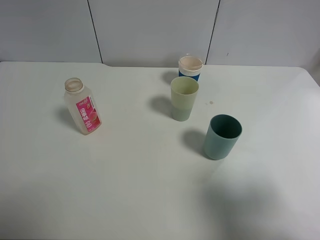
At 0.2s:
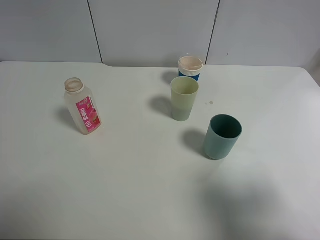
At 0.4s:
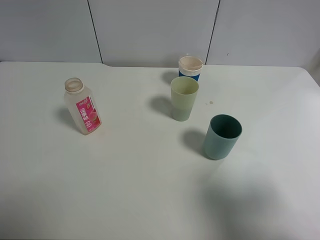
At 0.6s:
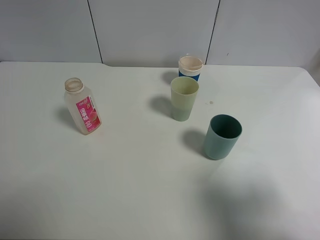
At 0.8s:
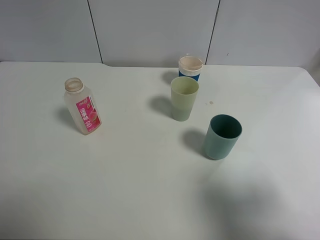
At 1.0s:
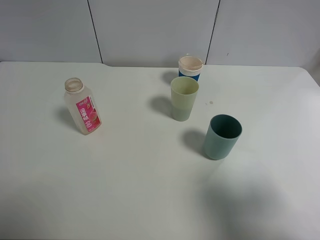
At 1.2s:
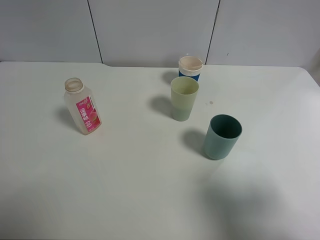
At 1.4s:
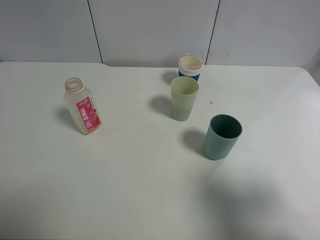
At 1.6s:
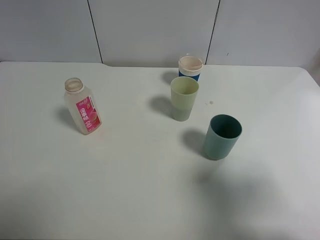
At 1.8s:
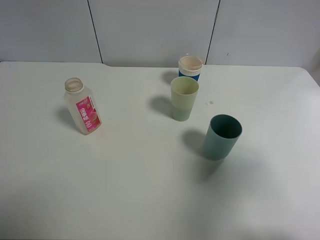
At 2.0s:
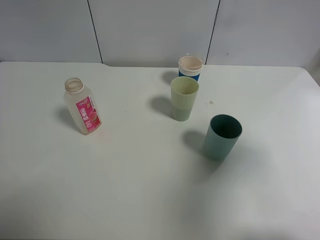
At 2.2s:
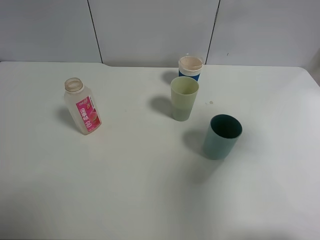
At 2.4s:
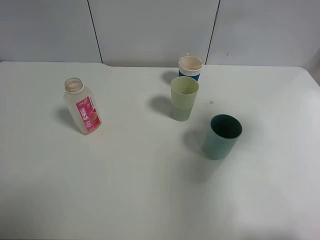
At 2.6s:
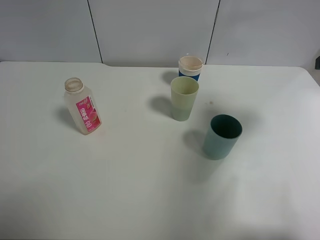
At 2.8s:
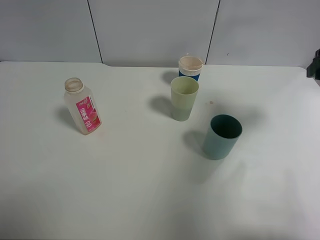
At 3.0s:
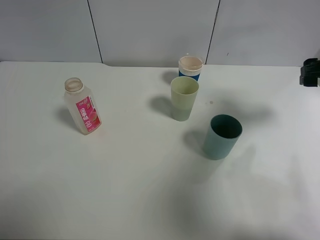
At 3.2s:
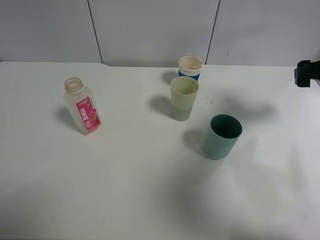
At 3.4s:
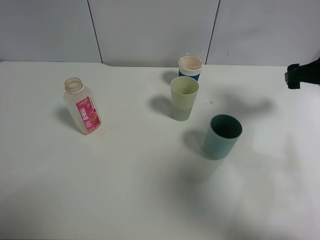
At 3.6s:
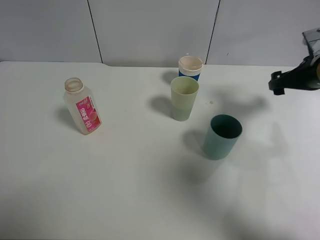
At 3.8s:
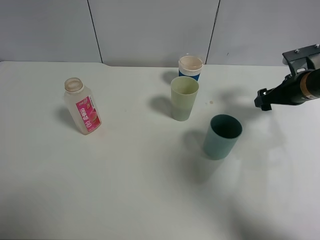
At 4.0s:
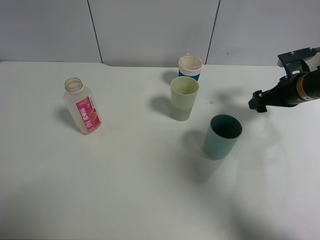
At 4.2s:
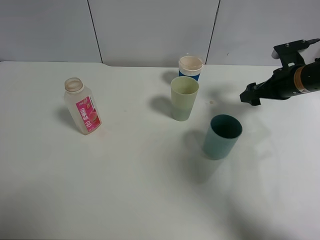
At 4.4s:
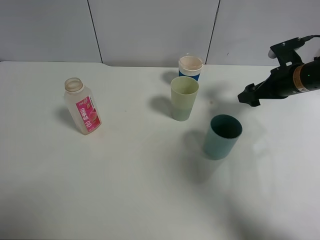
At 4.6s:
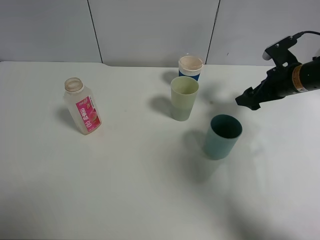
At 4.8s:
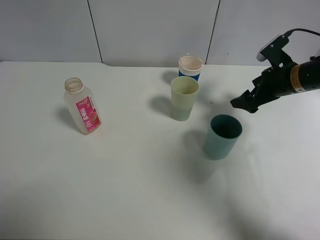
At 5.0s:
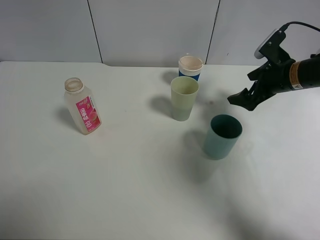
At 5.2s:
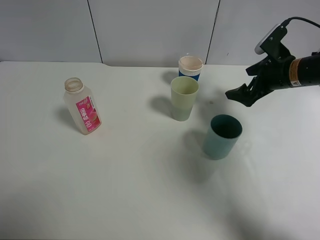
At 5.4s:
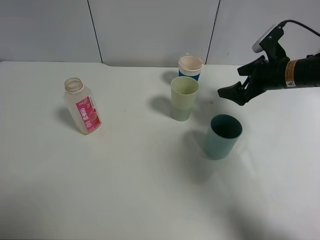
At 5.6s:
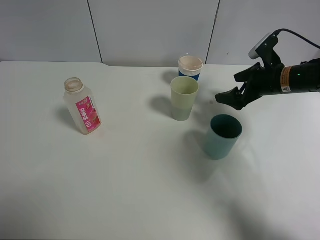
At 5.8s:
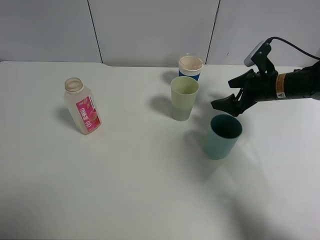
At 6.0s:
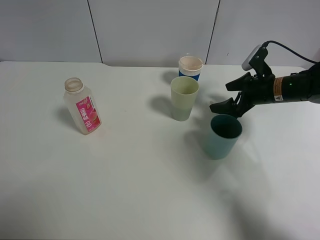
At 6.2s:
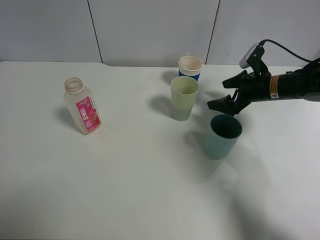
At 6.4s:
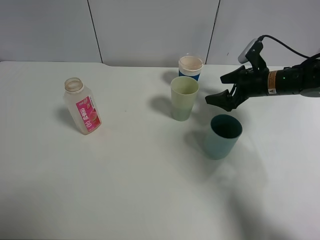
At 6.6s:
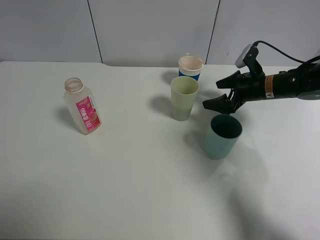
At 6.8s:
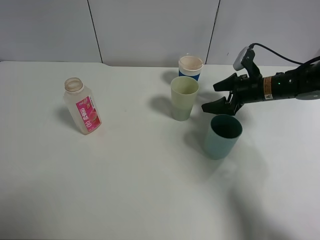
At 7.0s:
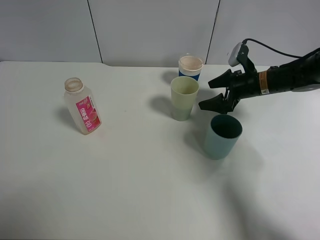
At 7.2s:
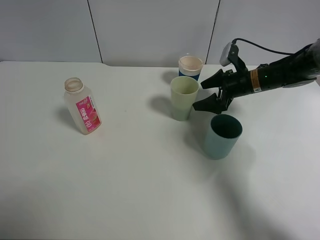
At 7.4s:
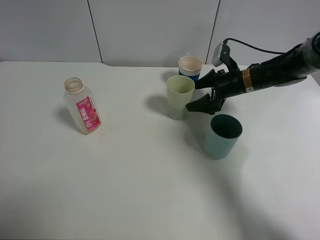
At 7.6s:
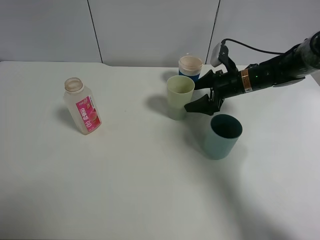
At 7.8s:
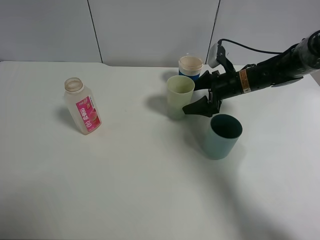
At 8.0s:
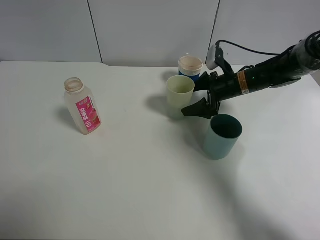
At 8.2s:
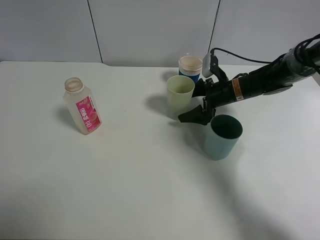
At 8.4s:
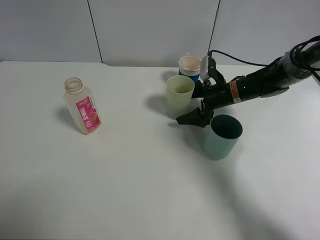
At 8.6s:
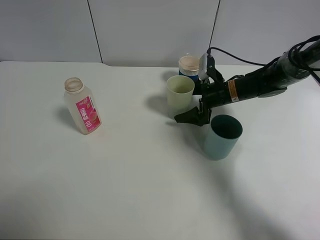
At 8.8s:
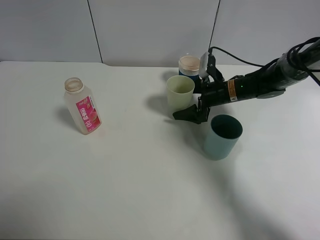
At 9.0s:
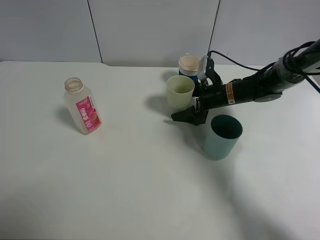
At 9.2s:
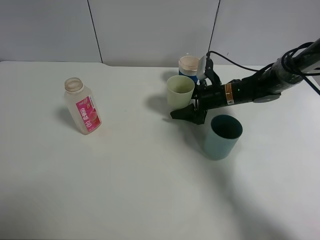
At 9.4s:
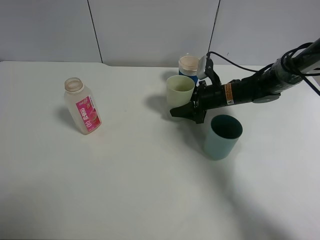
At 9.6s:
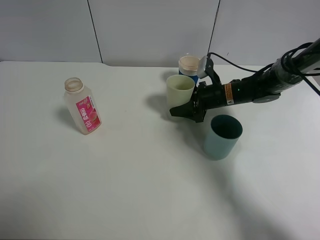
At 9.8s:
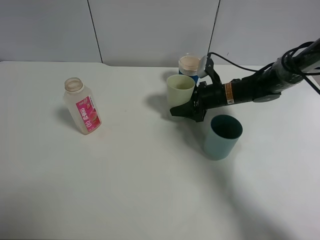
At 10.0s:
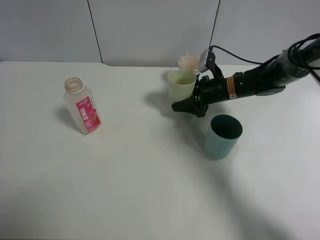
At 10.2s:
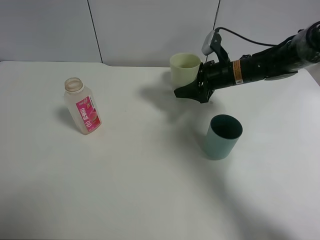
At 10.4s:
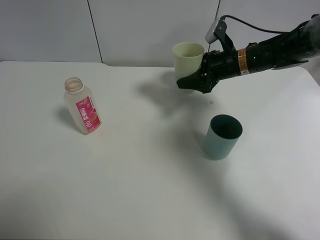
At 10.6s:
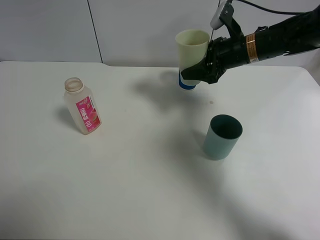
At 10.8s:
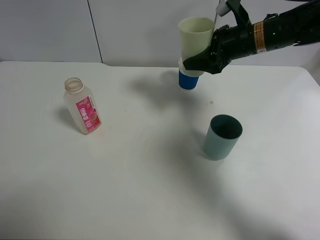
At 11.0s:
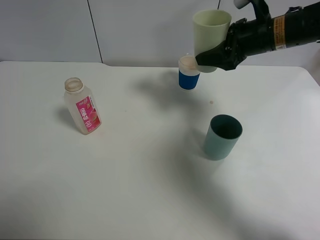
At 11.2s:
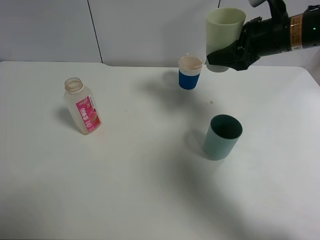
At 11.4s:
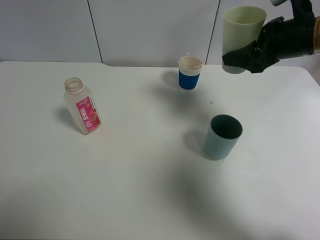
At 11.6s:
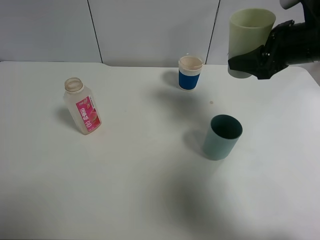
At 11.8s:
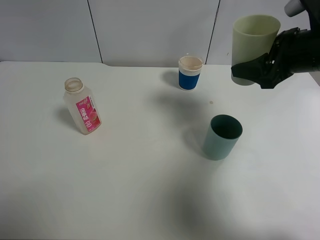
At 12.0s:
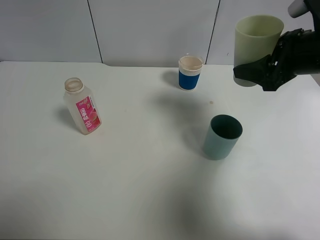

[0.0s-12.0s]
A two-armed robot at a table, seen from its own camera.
Task of the whole recording: use a clamp to hold the bottle of the drink, pour the beverage into a random cup, then clamp the cup containing the drink and pour the drink into another random cup.
Step, 0.0s to 10.4s: Pick up the green plastic cup bottle with right gripper.
0.0s to 1.6s: The grippers stay close to where they were, moving slightly.
1.6s to 3.0s: The right gripper is displaced forward by some 25 cm.
3.0s to 4.4s: The right gripper moves downward and forward, approximately 10 cm.
4.4s to 6.0s: The right gripper ends up roughly 5 cm from where it was.
6.0s to 7.6s: The right gripper is displaced to the left by approximately 5 cm.
7.6s to 9.0s: The grippers move only a little.
9.0s to 10.4s: The right gripper shifts approximately 10 cm upward, and closes.
10.4s to 12.0s: The right gripper heads backward, upward and to the right, covering some 20 cm.

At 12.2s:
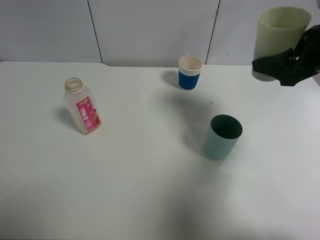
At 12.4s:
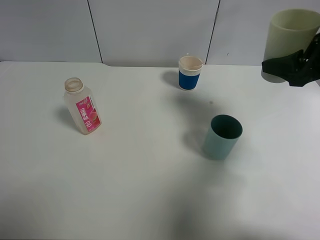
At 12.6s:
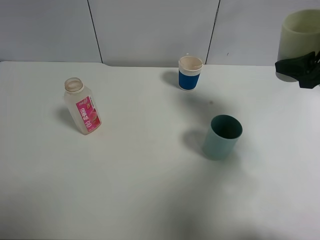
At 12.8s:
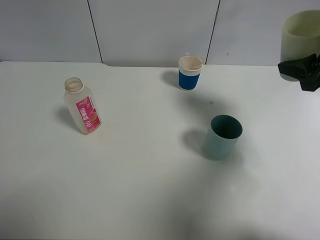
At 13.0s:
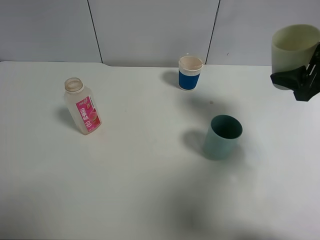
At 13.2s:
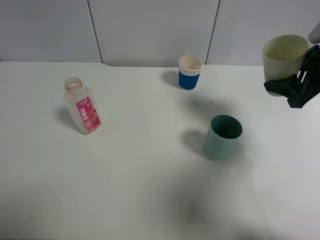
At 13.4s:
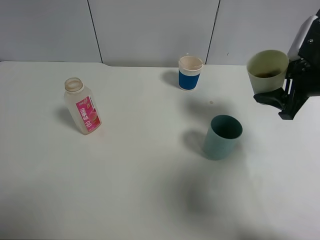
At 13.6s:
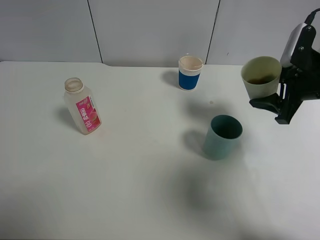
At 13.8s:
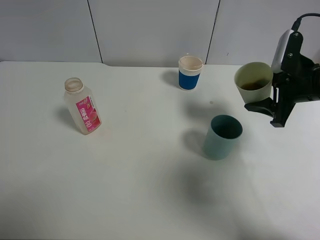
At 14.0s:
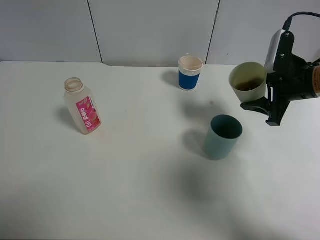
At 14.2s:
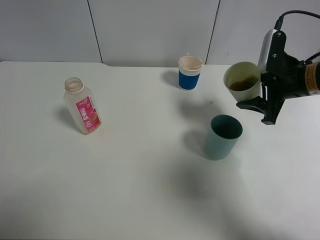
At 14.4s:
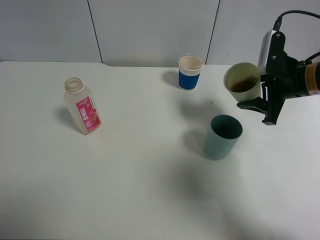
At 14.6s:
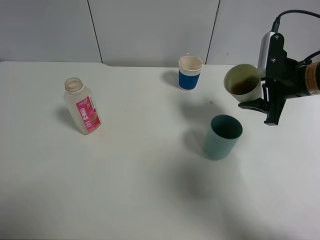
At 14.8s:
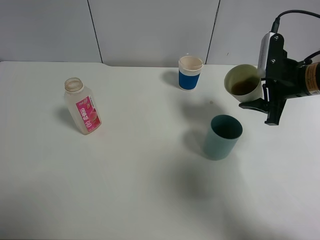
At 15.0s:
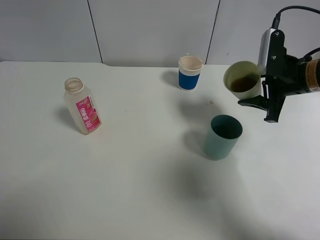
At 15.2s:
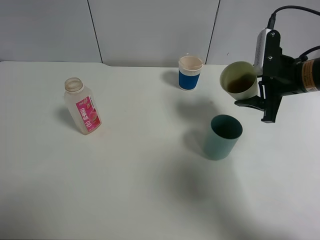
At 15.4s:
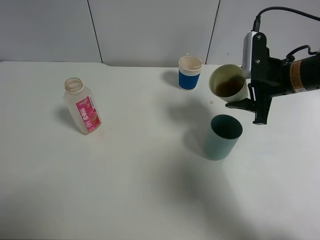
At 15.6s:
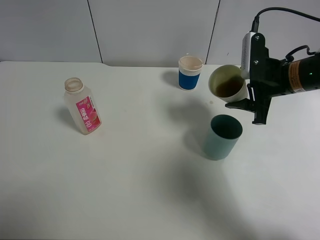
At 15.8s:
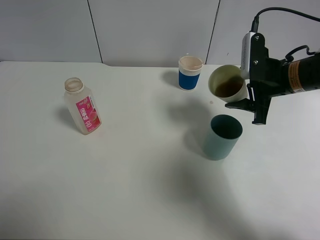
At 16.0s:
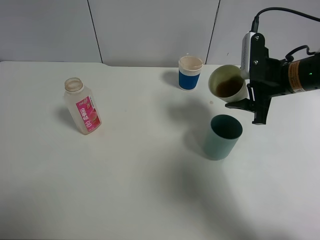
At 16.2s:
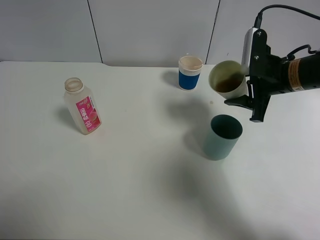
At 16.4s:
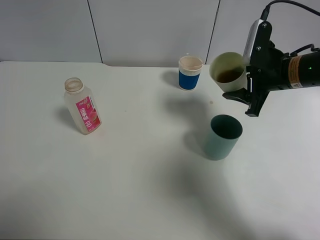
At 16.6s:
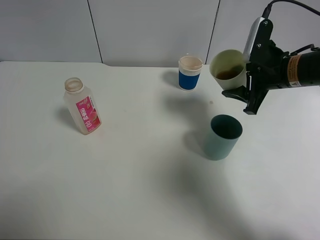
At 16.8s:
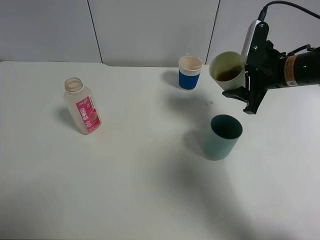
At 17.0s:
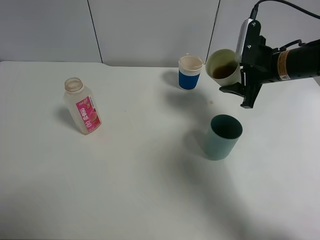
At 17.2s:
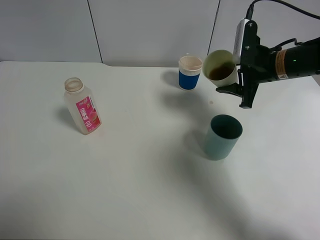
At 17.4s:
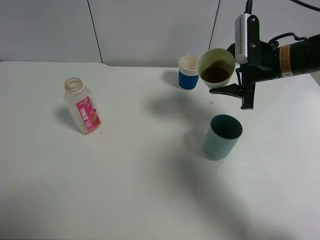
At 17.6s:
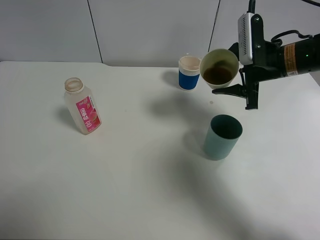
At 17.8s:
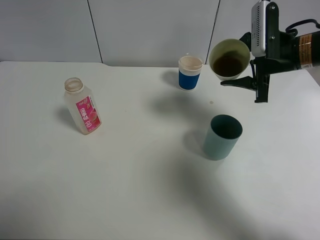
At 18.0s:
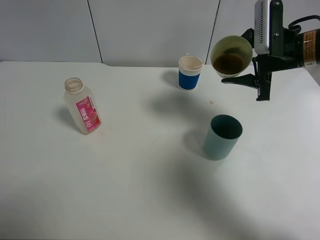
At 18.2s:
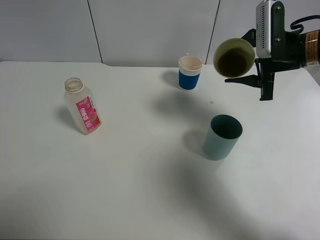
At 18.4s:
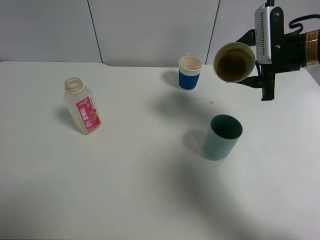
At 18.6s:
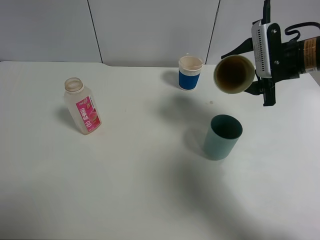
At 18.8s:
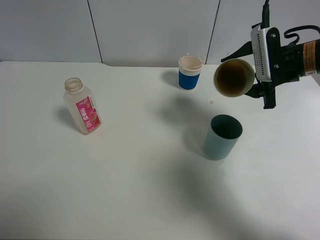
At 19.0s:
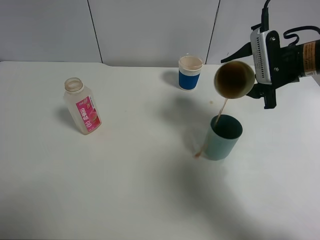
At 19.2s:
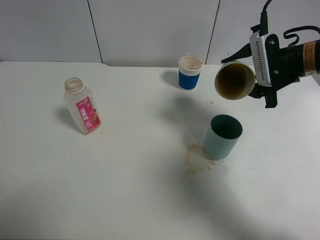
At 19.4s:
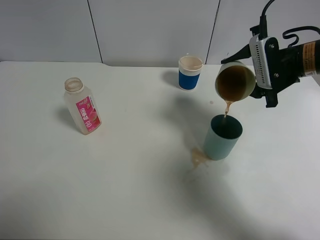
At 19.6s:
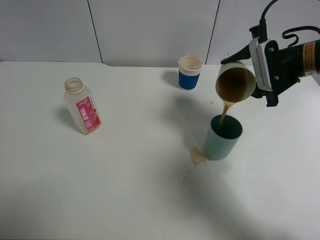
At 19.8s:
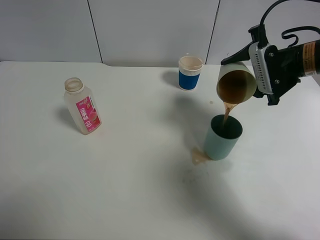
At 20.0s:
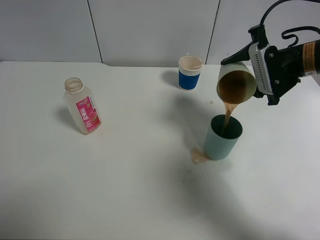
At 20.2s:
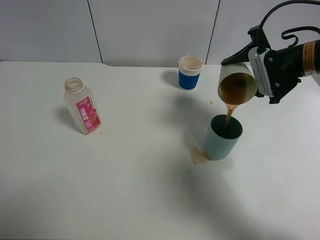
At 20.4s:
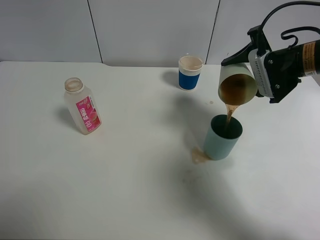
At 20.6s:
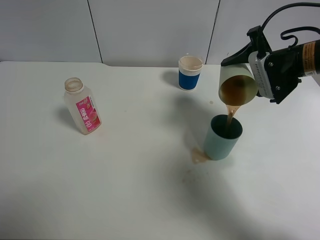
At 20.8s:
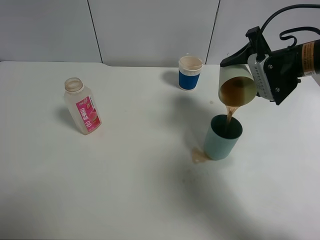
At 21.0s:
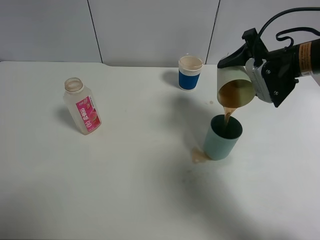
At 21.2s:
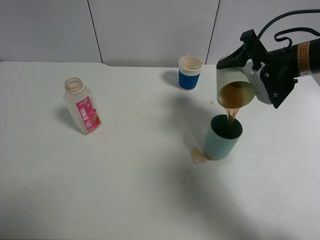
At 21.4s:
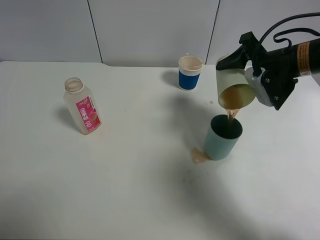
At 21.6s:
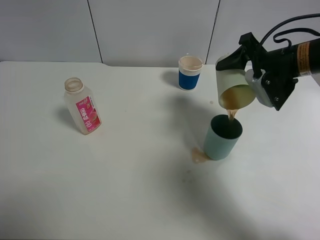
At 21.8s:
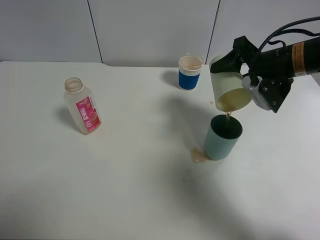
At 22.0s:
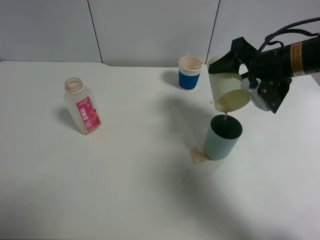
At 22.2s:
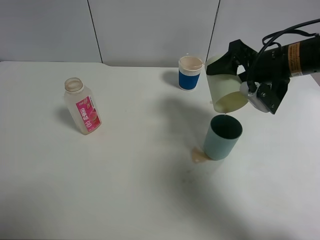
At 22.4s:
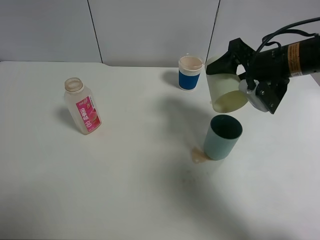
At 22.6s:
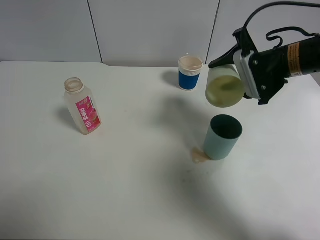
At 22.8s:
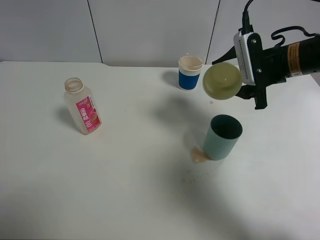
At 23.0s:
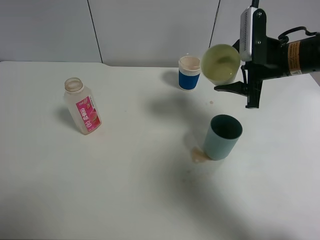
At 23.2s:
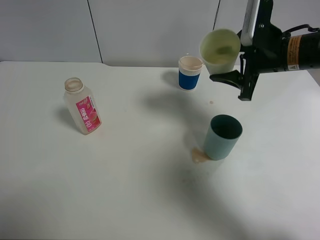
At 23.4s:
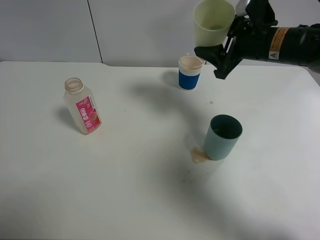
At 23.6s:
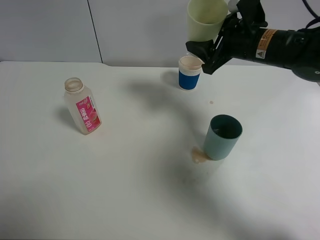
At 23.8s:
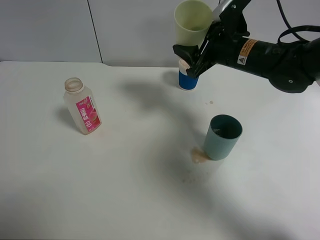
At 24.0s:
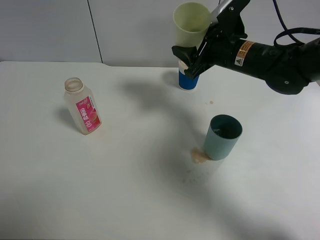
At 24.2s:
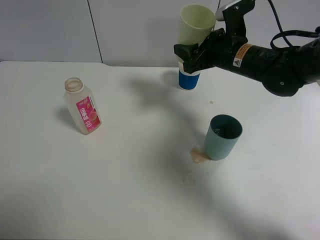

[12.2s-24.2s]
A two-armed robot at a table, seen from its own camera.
Task of the whole recording: use a clamp to hold the bottle of the drink, pour the beverage into a random cup, then clamp the cup containing the drink and pour the drink into another random cup.
Step, 12.2s to 22.8s: Pour the drink into the blue plastic cup with right gripper.
12.2s to 13.8s: The right gripper travels downward by roughly 10 cm.
13.8s to 16.6s: The grippers move only a little.
19.8s to 21.2s: The grippers move only a little.
21.2s to 22.6s: There are only small adjustments of the grippers.
22.6s to 24.2s: The right gripper moves to the left, some 5 cm.
